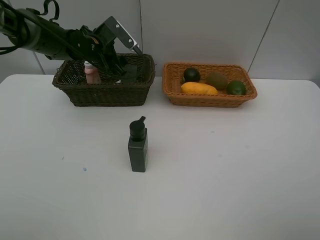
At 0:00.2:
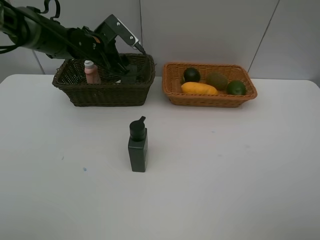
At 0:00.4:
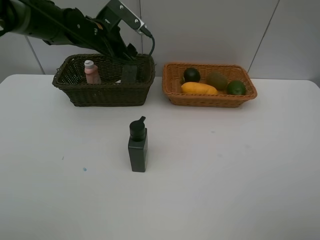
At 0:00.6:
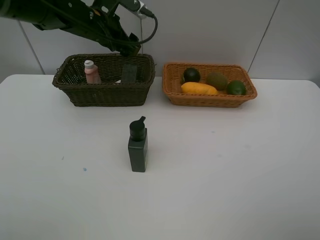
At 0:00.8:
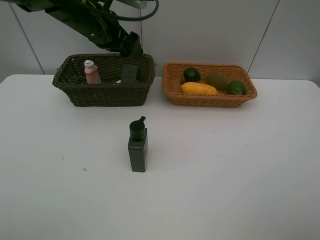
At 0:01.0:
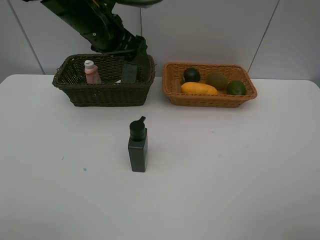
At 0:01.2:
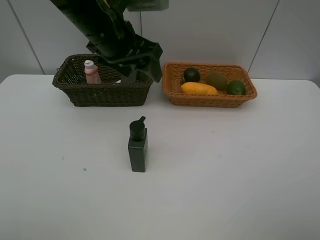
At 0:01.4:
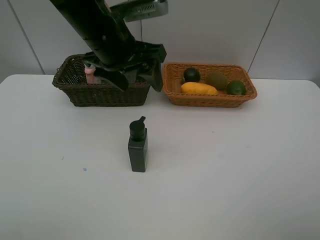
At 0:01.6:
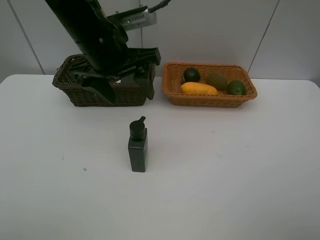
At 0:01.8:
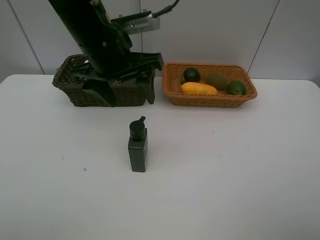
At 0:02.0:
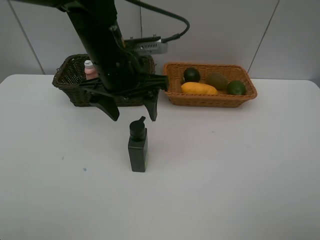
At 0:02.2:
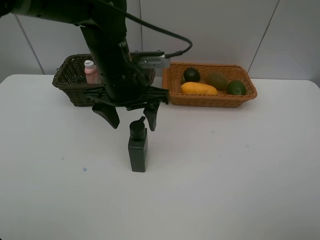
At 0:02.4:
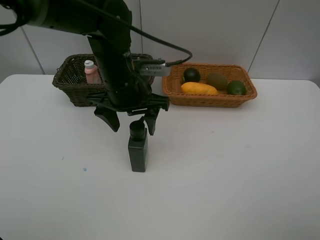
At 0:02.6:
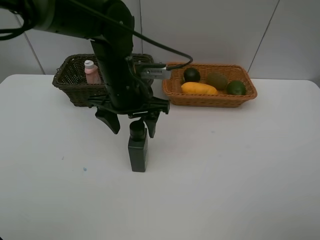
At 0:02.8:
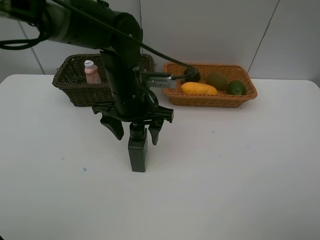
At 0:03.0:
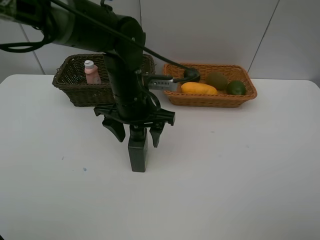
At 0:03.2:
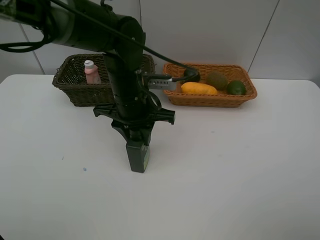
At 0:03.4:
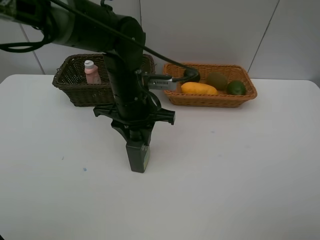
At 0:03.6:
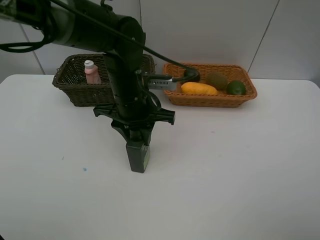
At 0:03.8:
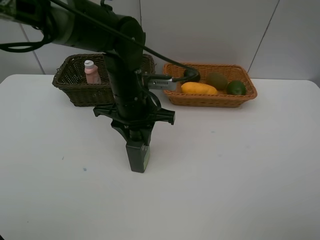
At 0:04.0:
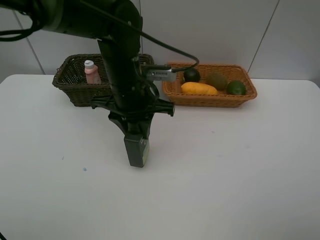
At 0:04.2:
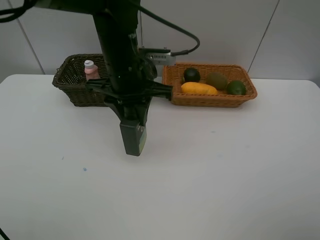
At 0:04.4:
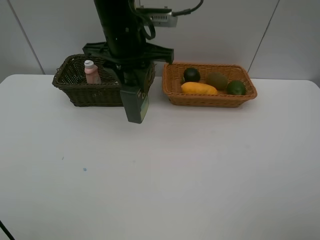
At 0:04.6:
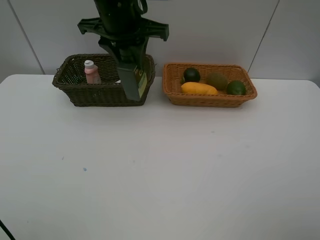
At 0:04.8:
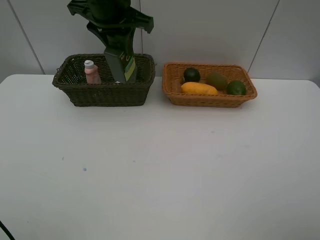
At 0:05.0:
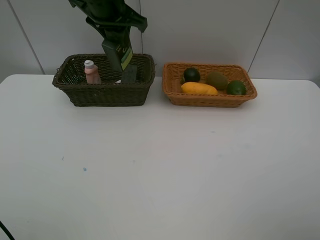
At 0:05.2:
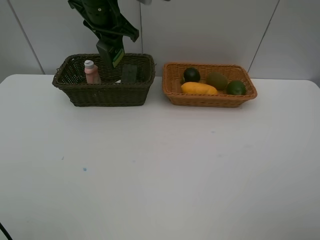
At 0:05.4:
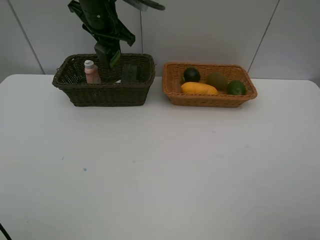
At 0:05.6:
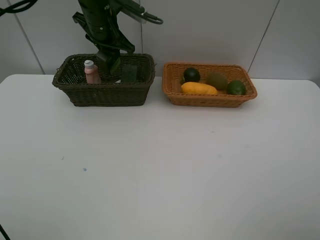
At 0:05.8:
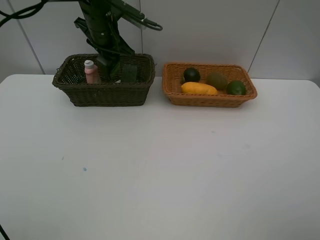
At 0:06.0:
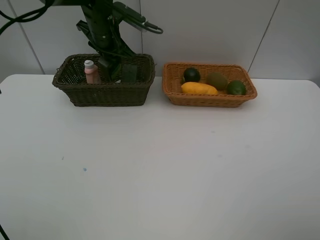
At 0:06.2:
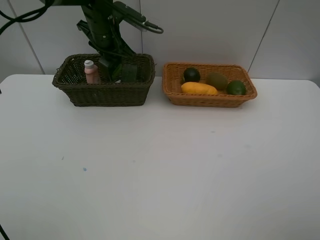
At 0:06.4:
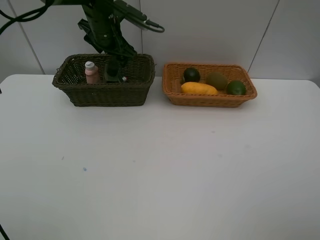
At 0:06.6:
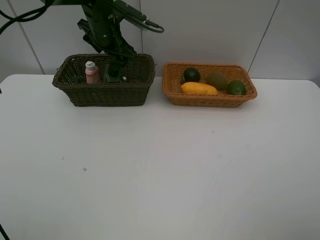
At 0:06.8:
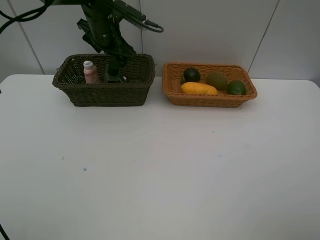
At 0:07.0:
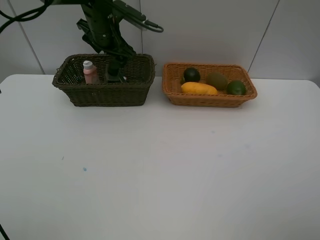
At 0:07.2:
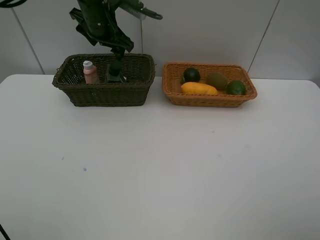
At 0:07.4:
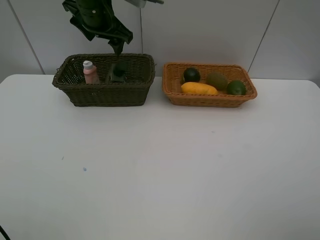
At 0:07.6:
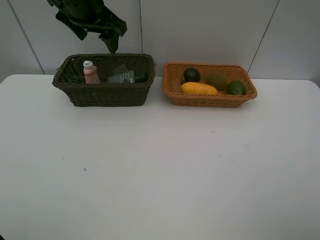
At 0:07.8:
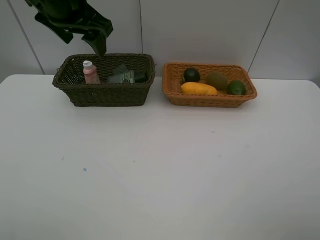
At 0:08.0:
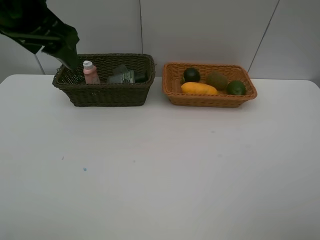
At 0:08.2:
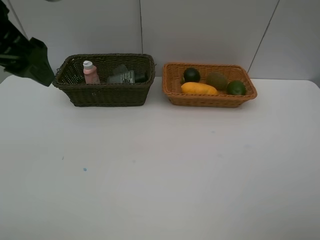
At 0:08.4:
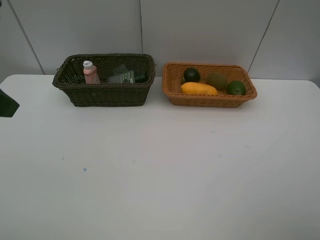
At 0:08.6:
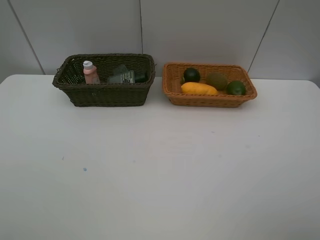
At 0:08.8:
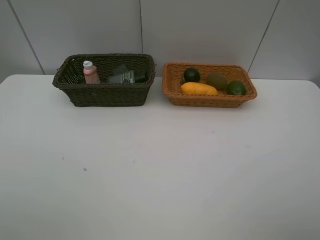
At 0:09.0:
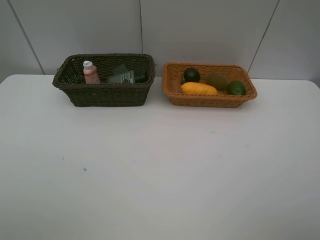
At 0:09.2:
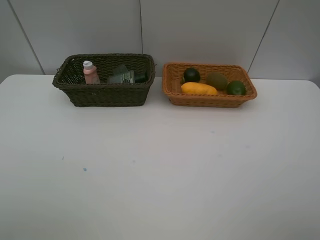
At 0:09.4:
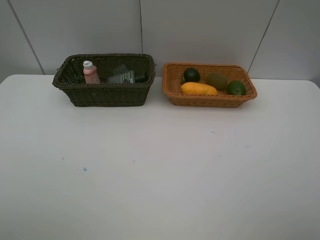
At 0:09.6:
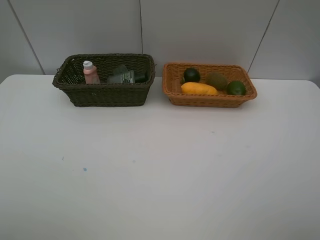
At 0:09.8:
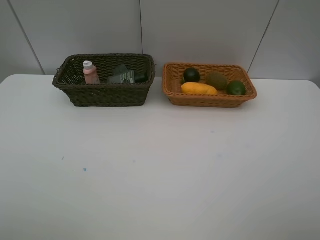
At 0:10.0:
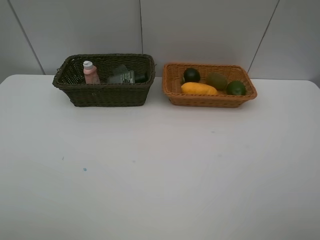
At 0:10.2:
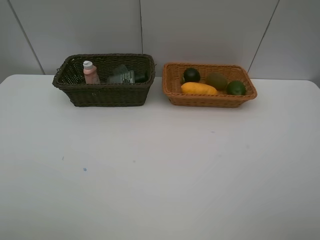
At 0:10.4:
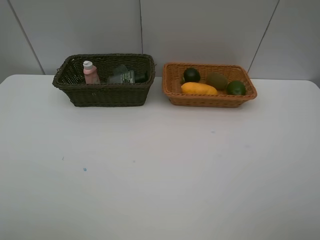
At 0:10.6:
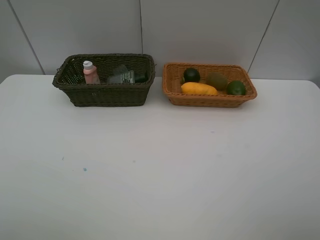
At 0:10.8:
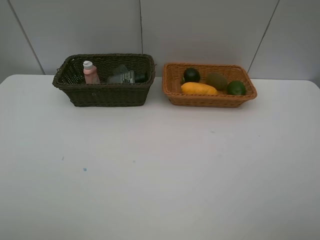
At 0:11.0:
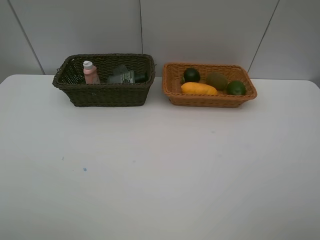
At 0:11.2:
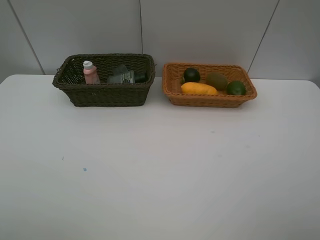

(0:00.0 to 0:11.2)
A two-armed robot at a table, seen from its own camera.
Task of the whole recording: Place multiple objects separately in different baskets.
Step, 0:00.2 - 0:04.2: Pick up the hard facial cleanser with left gripper.
Step, 0:04.4 - 0:07.2: Place the hard facial cleanser in the dark basket with left gripper.
0:00.0 - 0:01.6: The left gripper goes about 20 cm backward, upward and to the right.
0:01.6 - 0:03.2: The left gripper shifts some 10 cm downward, and closes its fingers.
0:03.2 - 0:04.8: The left gripper travels upward and forward by roughly 15 cm.
0:04.8 - 0:06.4: The left gripper heads downward and forward, covering about 15 cm, and opens up.
0:06.4 - 0:08.0: The left gripper is displaced backward and upward by roughly 25 cm.
0:08.0 - 0:09.6: The left gripper is displaced backward and to the left by some 25 cm.

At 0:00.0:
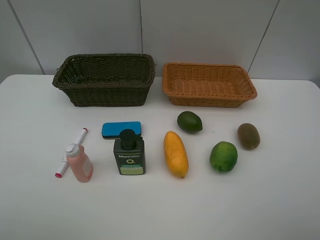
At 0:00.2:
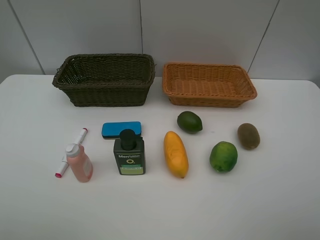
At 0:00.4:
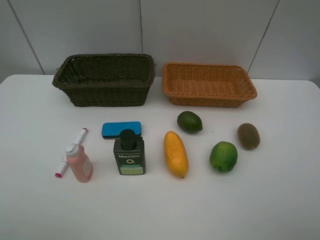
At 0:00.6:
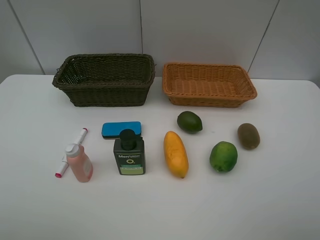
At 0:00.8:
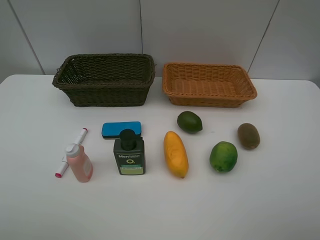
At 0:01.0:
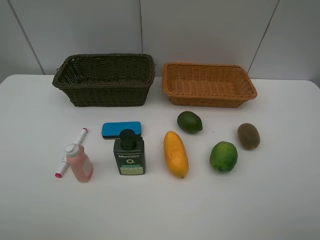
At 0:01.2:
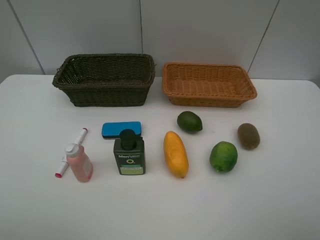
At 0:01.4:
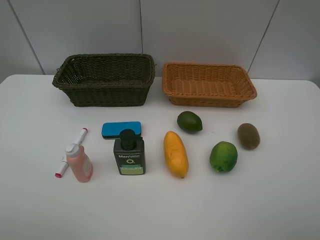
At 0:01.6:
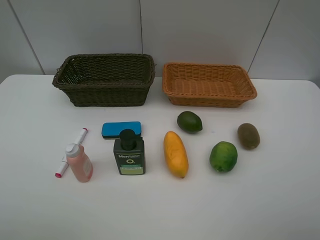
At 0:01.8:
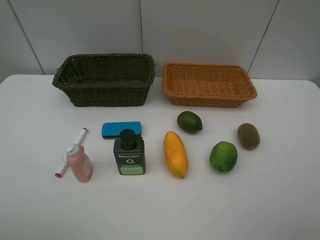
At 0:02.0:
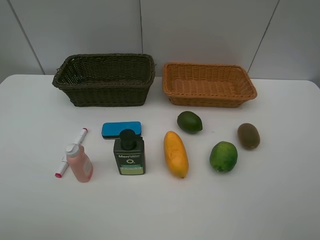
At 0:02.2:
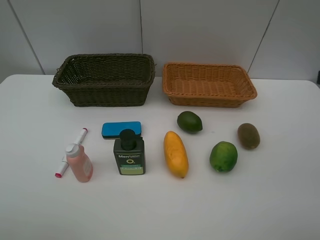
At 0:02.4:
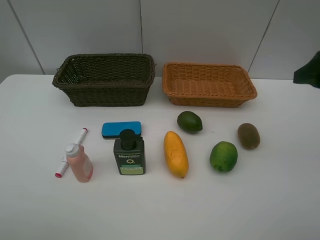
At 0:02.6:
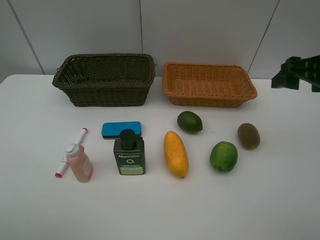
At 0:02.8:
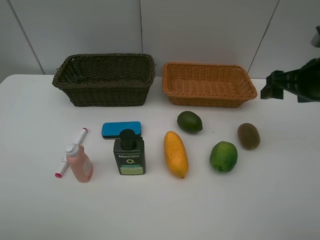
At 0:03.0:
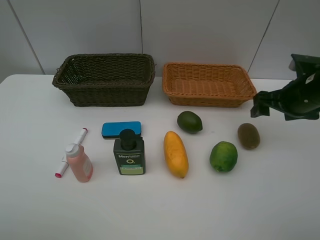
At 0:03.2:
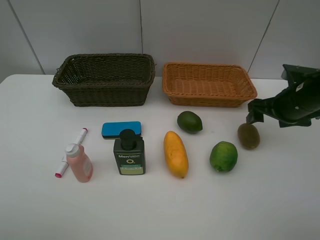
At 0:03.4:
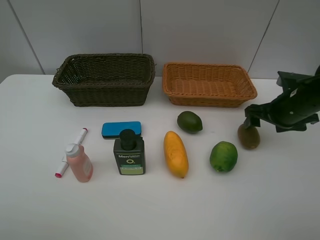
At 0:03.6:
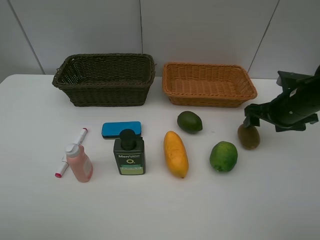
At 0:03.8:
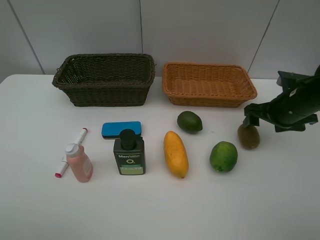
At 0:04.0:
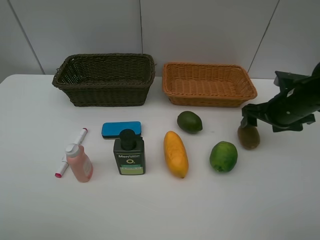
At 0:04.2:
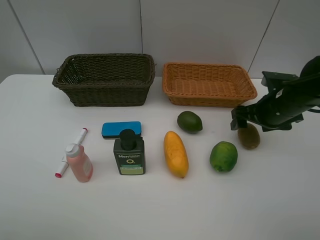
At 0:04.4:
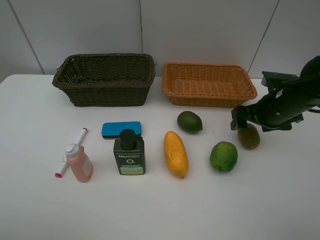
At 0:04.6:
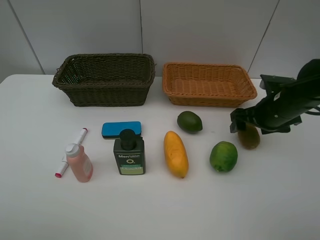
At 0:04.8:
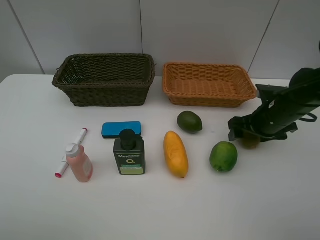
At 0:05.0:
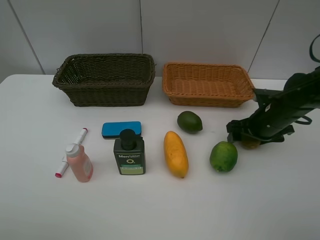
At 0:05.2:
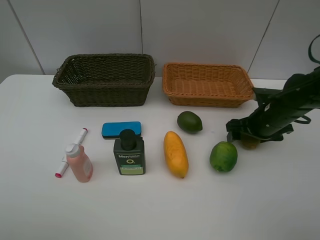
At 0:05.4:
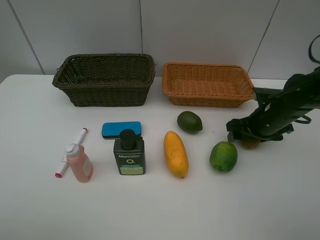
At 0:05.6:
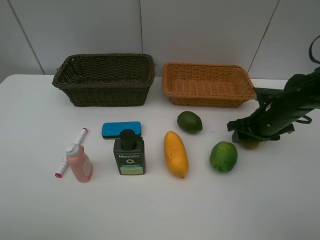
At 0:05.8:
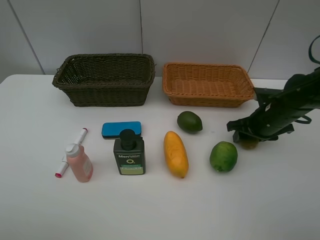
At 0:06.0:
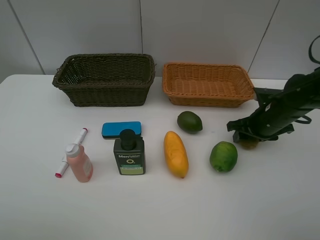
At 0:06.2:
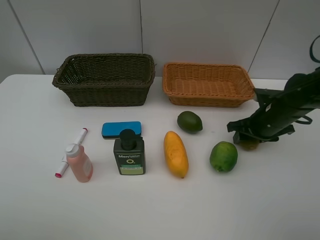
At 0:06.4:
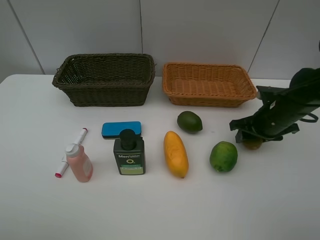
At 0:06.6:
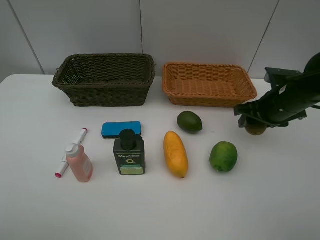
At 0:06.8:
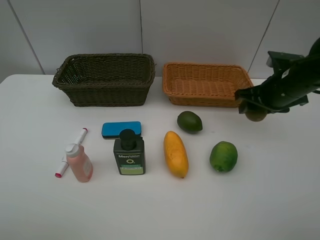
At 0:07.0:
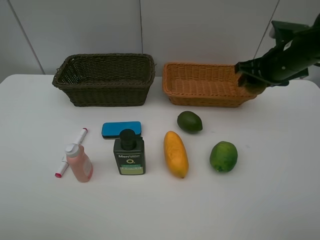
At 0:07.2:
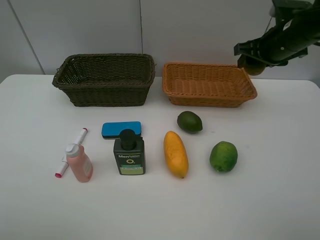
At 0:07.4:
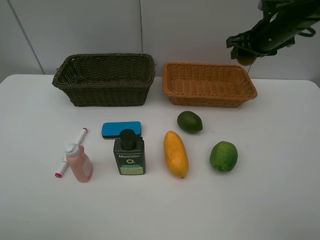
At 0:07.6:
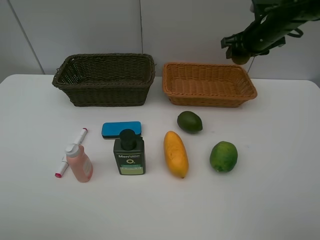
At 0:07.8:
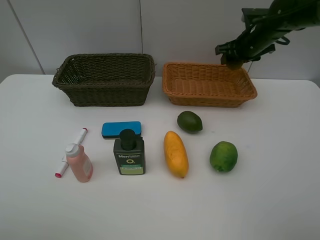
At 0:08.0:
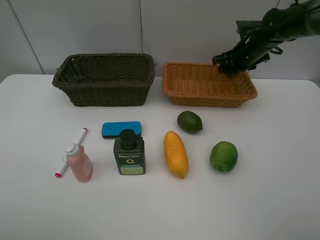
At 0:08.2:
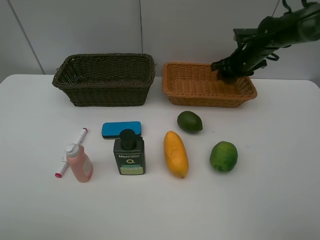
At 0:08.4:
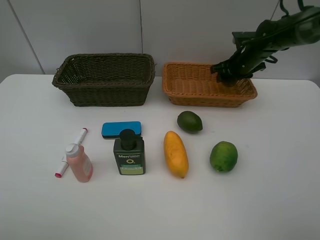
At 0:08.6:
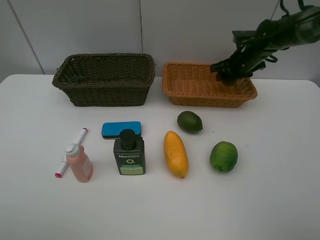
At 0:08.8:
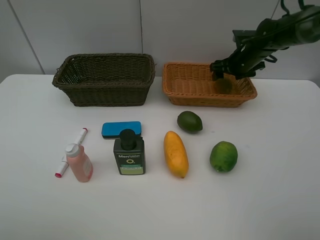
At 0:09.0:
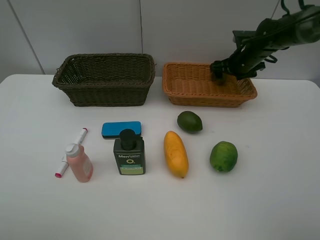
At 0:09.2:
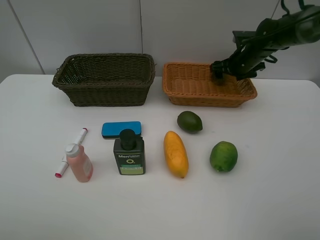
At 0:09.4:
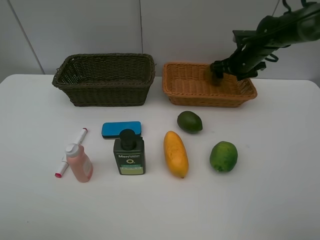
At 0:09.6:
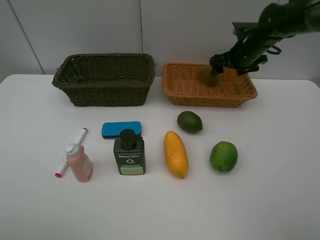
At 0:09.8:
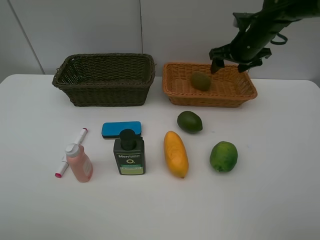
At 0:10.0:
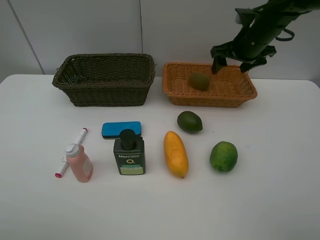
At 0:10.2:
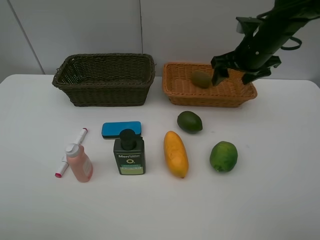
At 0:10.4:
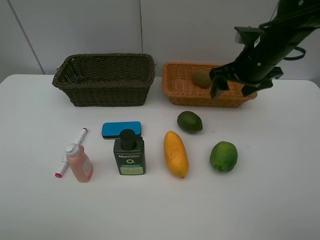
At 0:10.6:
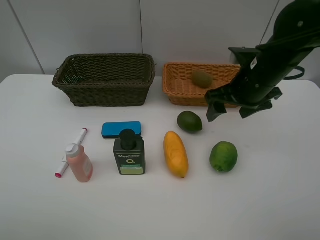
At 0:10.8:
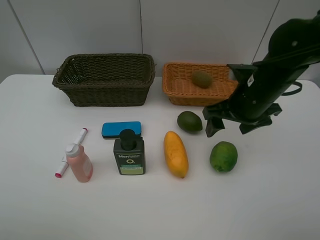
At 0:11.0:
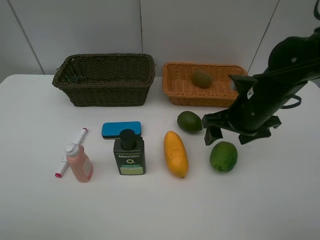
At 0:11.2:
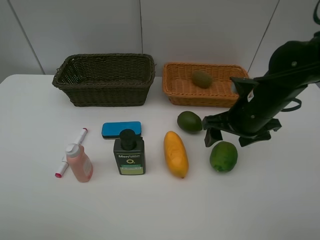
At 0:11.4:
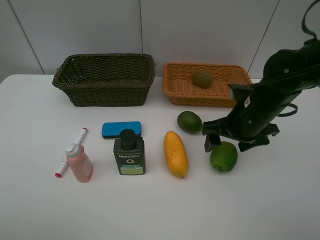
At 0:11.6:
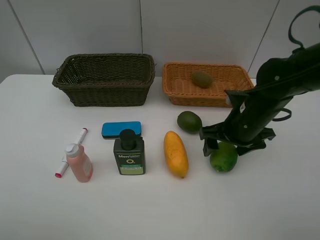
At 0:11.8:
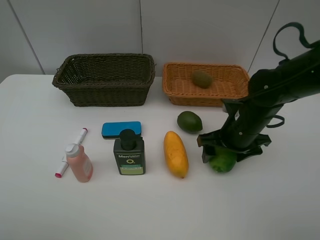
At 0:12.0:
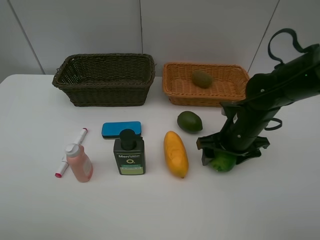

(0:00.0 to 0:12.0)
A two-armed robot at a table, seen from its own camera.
Task of the whole recording: Place multiple objects separately in different baskets.
Step, 0:00.0 - 0:06.4: Pick up kiwi with right gripper.
Step, 0:06.6 - 0:09.4: Place the kiwi in the light basket with right gripper.
0:00.0 - 0:01.6: Both grippers stay about where they are.
0:01.6 - 0:03.0: The right gripper travels forward by approximately 30 cm.
0:03.0 - 0:04.4: The right gripper changes place by some 5 cm.
0:04.4 - 0:06.0: The right gripper closes its fingers.
0:06.0 - 0:07.6: The right gripper shifts about 20 cm upward and forward.
0:07.6 - 0:09.0: The right gripper is displaced downward by some 10 cm, and opens up.
0:09.0 - 0:10.4: The right gripper is displaced backward and upward by some 15 cm.
0:10.4 - 0:12.0: The right gripper heads downward and backward, covering approximately 15 cm.
